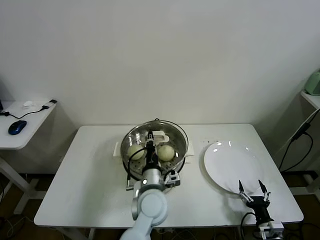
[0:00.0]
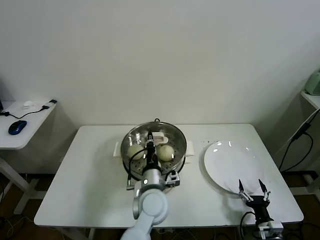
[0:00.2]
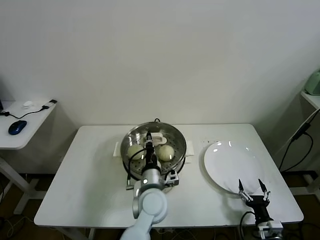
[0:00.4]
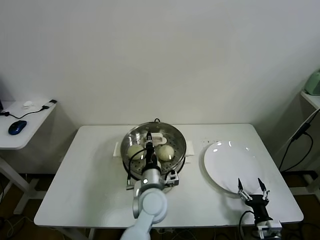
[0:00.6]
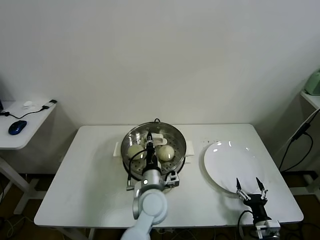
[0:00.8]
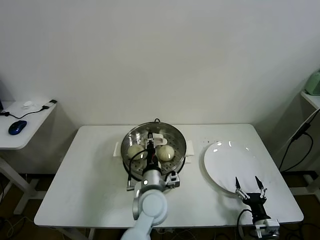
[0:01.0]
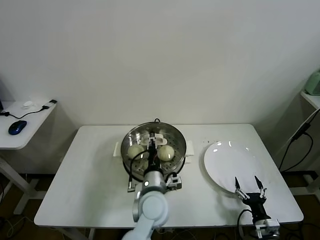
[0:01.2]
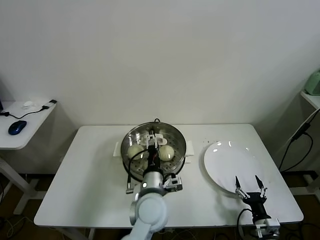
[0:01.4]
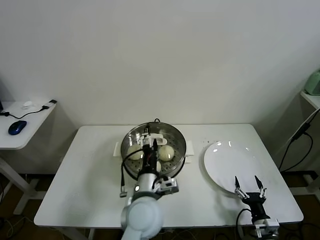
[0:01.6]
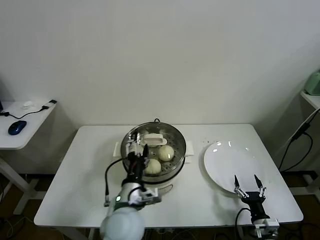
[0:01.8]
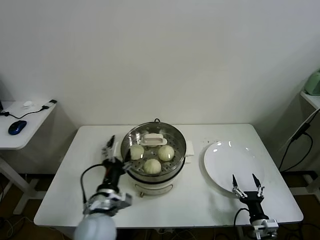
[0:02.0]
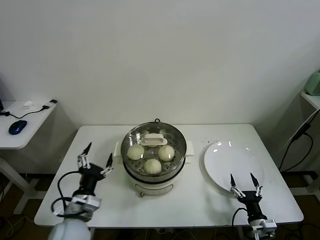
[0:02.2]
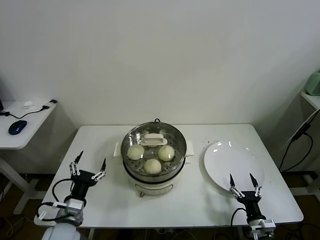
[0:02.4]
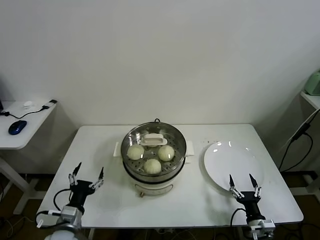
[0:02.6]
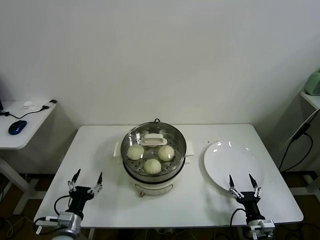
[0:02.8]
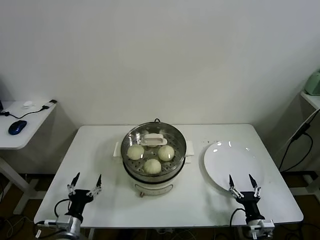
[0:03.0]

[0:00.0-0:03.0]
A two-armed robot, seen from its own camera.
Task of the whole recording: take steamed baozi put them in steamer.
0:00.0 to 0:01.6: The left gripper opens up.
0:01.6 to 0:03.0: The left gripper is displaced to the left and downward by about 30 cm.

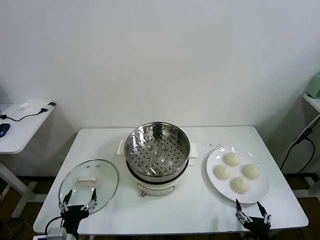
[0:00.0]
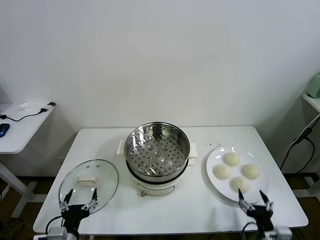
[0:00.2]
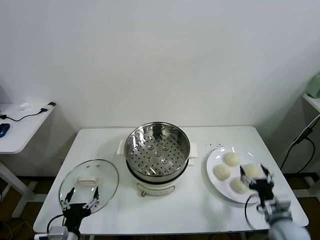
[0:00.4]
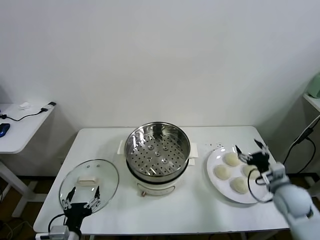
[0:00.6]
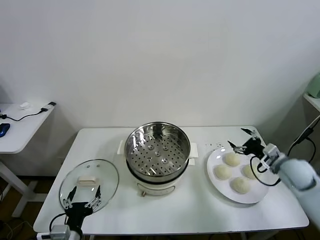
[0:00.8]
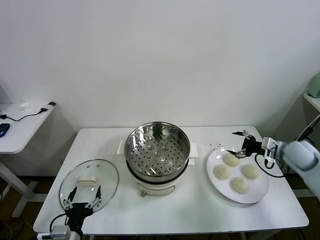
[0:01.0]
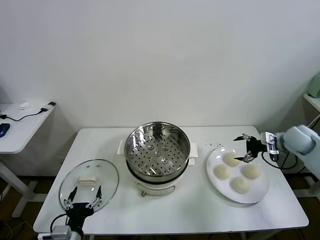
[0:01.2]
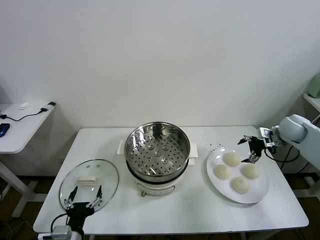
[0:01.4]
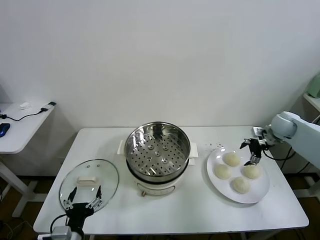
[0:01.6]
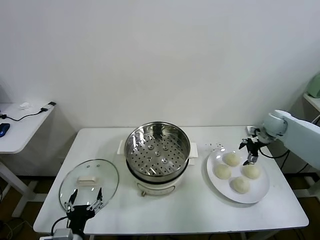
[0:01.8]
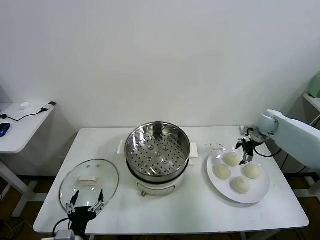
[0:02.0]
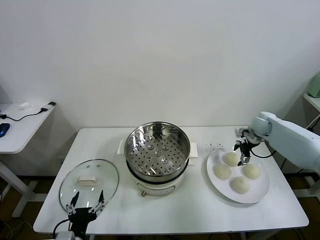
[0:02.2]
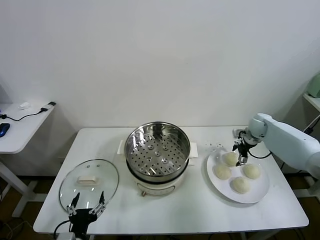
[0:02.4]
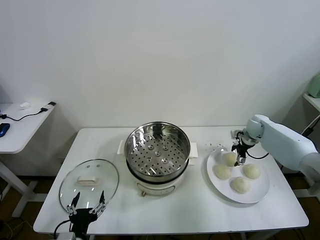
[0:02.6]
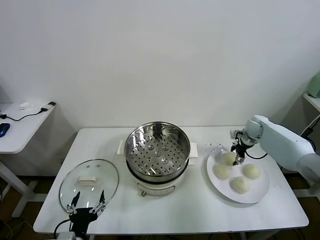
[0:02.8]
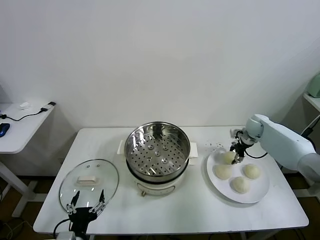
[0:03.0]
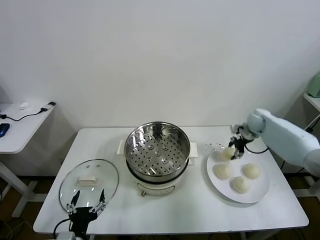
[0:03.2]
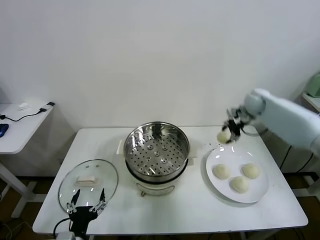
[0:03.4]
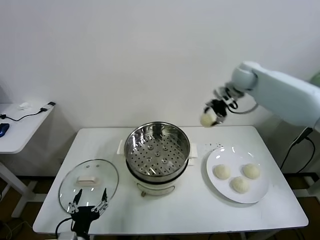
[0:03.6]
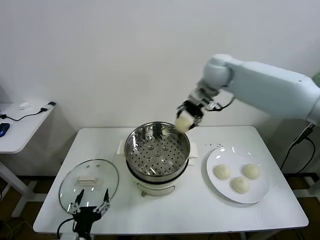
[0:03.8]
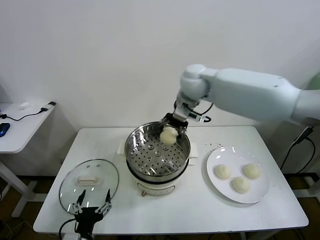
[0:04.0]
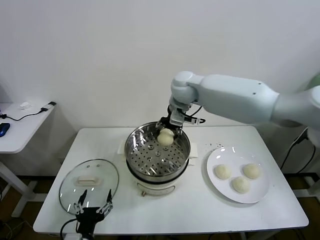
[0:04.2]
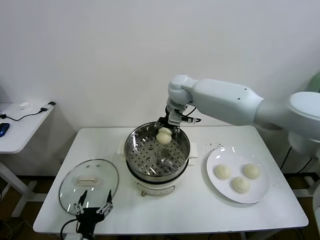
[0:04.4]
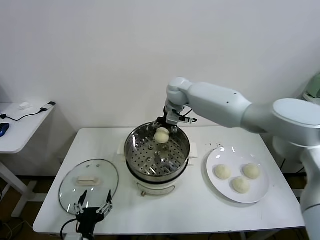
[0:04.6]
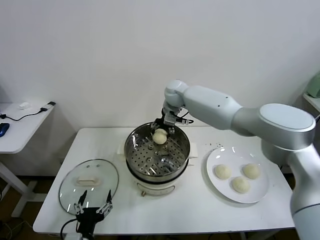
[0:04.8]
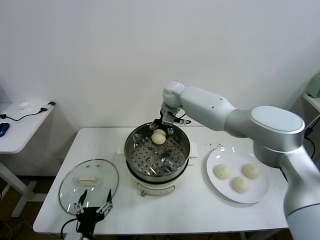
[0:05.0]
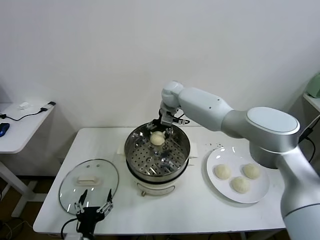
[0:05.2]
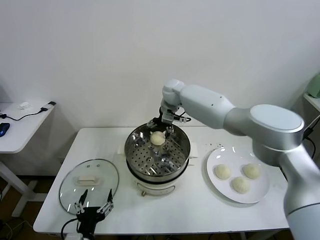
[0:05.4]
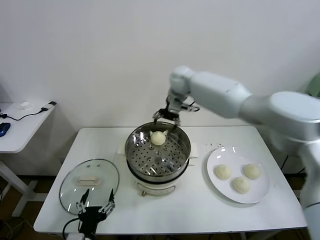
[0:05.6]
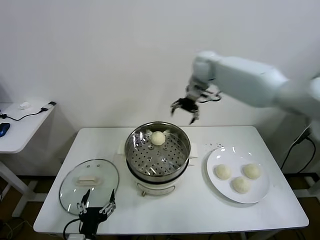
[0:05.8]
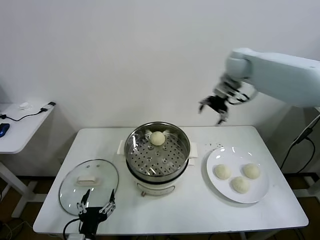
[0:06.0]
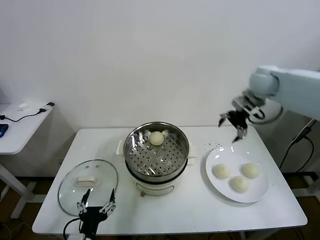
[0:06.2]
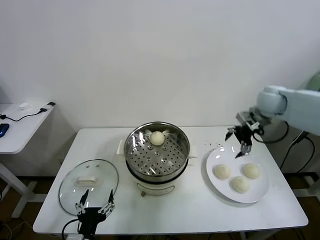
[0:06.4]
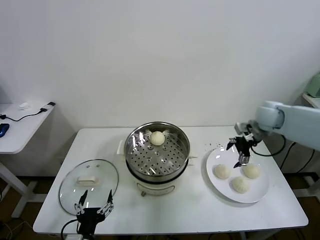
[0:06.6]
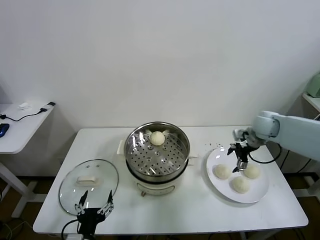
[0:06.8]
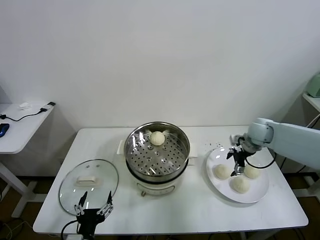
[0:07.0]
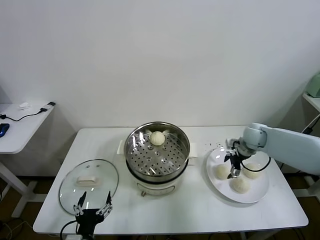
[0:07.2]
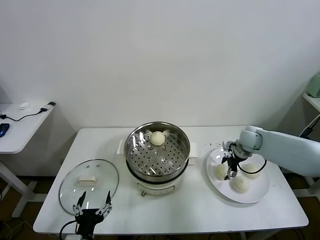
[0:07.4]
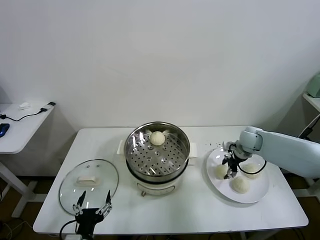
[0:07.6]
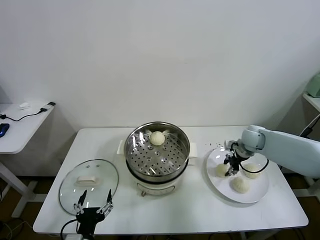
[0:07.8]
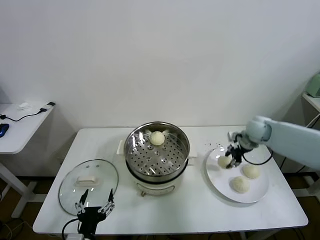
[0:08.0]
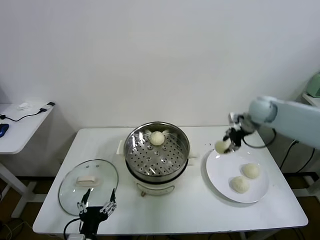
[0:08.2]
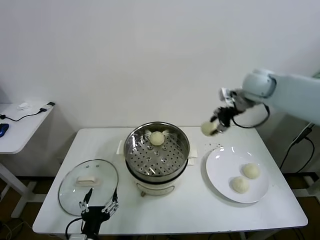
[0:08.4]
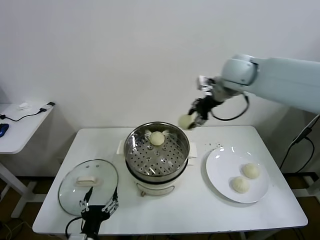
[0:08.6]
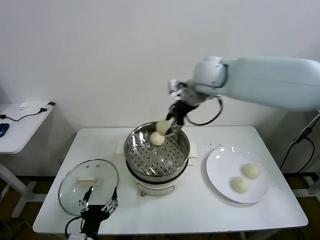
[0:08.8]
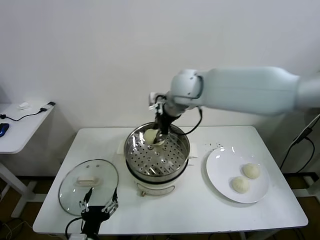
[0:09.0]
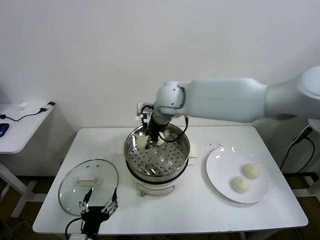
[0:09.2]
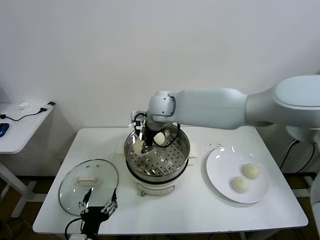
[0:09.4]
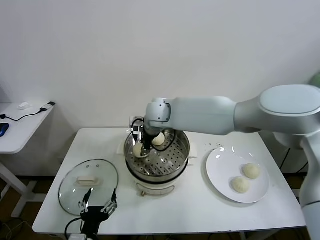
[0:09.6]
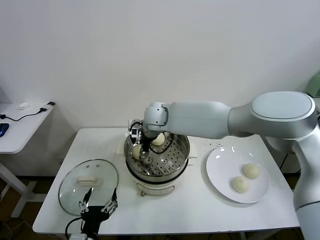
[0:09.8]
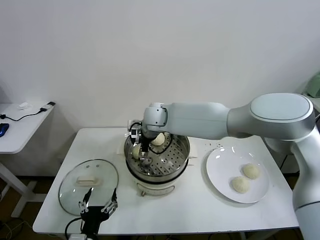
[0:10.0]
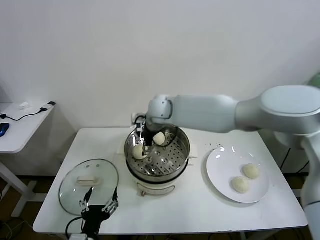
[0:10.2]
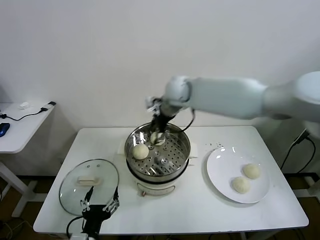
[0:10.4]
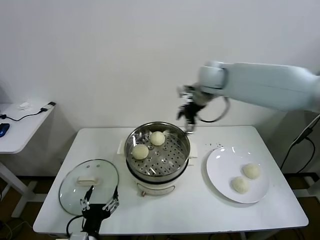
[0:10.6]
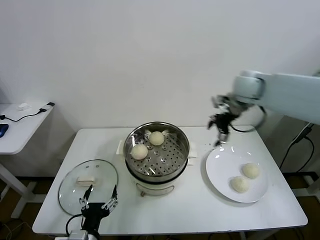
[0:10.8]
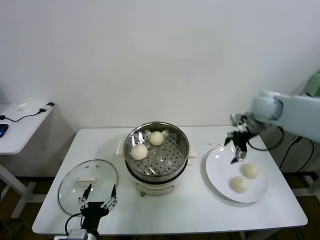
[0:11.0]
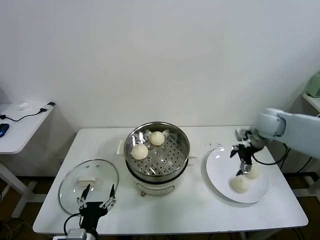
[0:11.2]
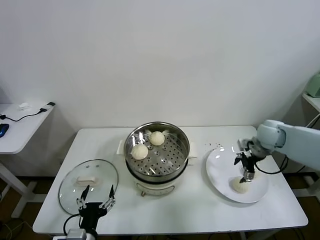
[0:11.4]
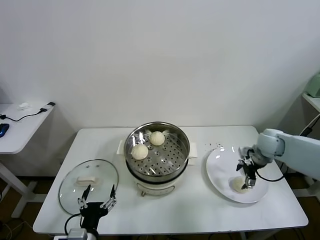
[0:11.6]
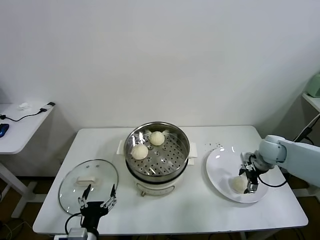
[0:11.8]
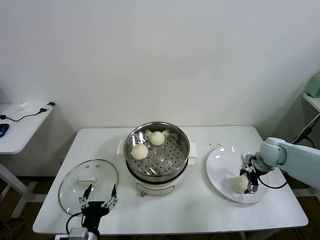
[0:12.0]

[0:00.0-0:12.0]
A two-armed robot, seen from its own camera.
Task of the whole recording: take steamed baozi put them in steamer.
Step, 0:00.0 to 0:02.8: Grasp the baozi in the plate with right gripper.
Step, 0:03.2 to 0:05.2: Place the baozi on the steamer with right gripper.
Step, 0:05.4 to 0:07.6: Grasp the baozi in the plate with right gripper.
Step, 0:07.8 to 0:10.0: Place the baozi on the steamer with right gripper.
0:01.6 to 0:03.0: The right gripper heads forward, covering approximately 5 cm, and closes its fingers.
0:03.0 to 0:04.4: The right gripper travels to the left and upward by some 40 cm.
0:04.4 to 0:06.0: The right gripper travels to the right by roughly 25 cm, and opens up.
0:06.0 to 0:07.6: The right gripper heads downward, covering approximately 25 cm, and closes its fingers.
0:07.6 to 0:09.0: The right gripper shifts approximately 40 cm to the left and upward.
0:09.0 to 0:10.4: The right gripper goes about 5 cm forward, reaches roughly 10 cm downward, then returns, and opens its fingers.
0:10.4 to 0:12.0: The right gripper moves to the right and downward, approximately 40 cm.

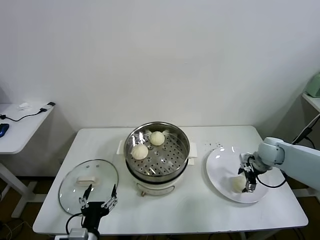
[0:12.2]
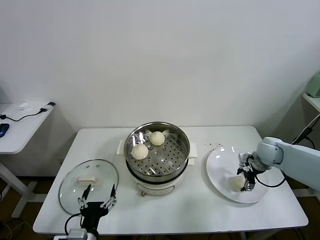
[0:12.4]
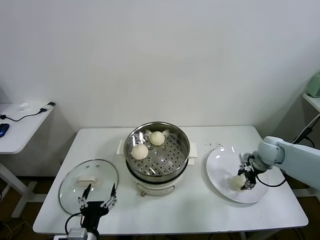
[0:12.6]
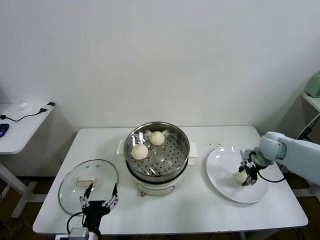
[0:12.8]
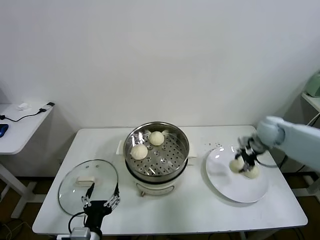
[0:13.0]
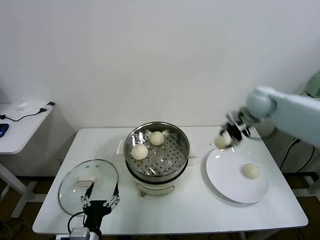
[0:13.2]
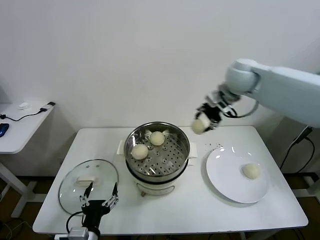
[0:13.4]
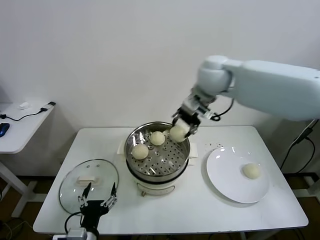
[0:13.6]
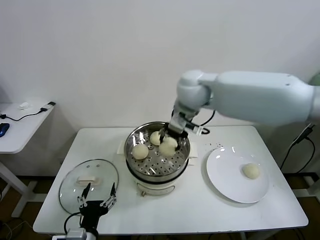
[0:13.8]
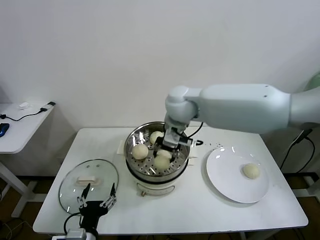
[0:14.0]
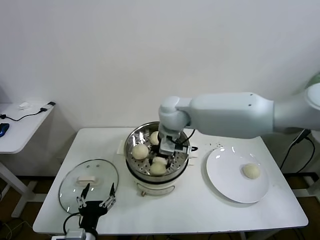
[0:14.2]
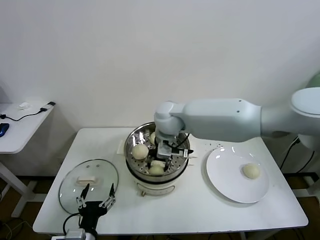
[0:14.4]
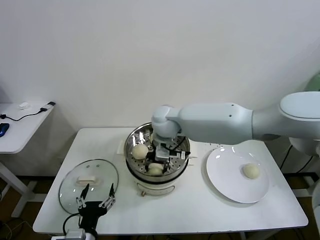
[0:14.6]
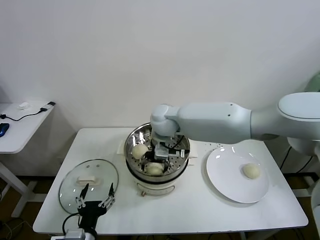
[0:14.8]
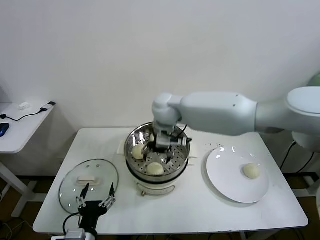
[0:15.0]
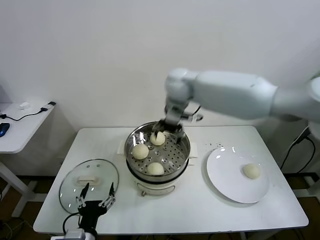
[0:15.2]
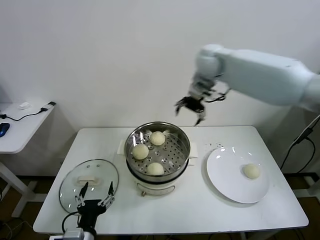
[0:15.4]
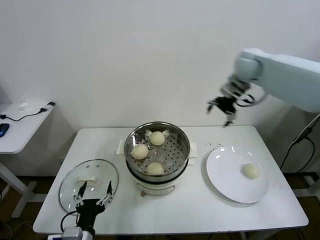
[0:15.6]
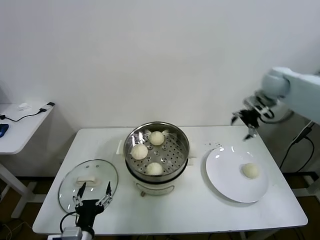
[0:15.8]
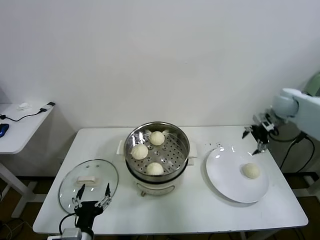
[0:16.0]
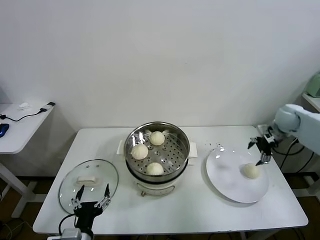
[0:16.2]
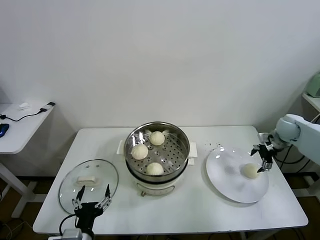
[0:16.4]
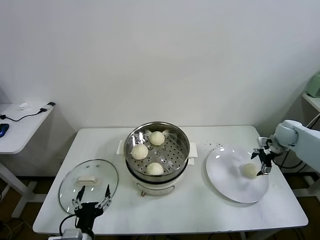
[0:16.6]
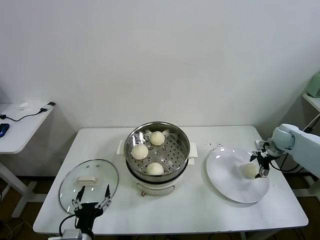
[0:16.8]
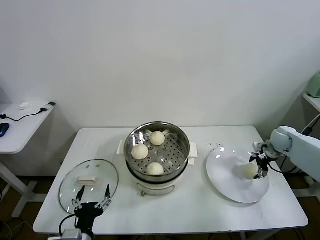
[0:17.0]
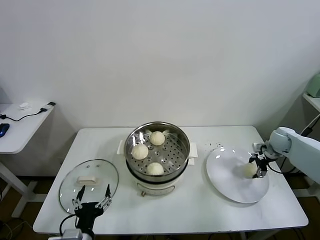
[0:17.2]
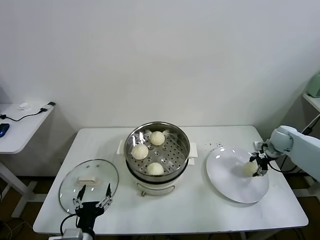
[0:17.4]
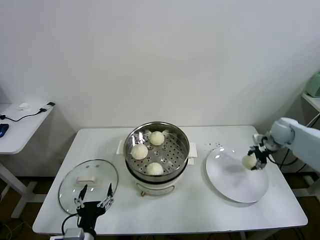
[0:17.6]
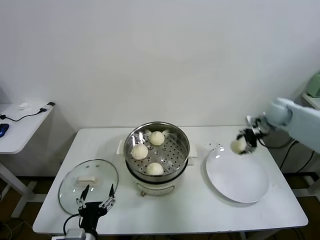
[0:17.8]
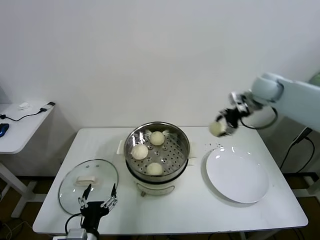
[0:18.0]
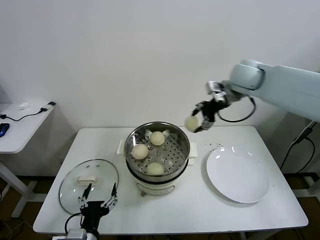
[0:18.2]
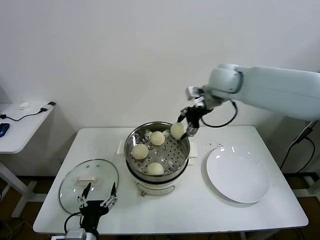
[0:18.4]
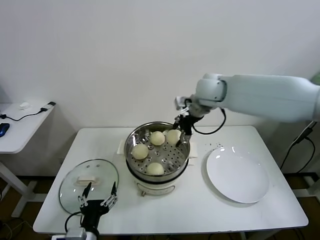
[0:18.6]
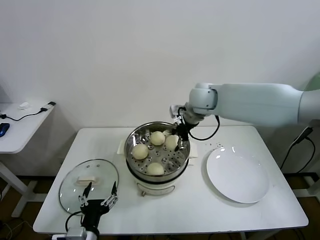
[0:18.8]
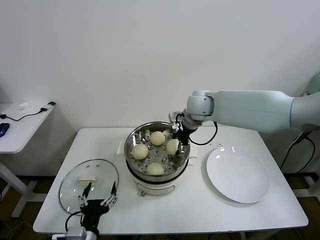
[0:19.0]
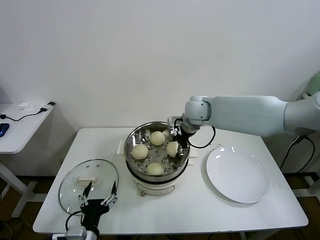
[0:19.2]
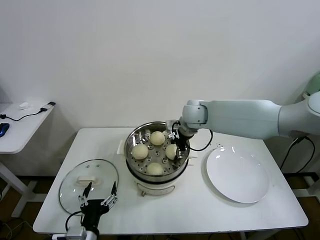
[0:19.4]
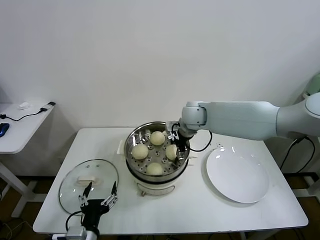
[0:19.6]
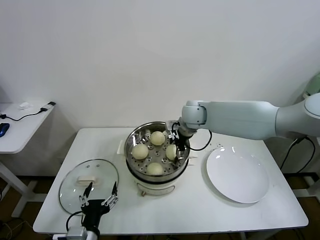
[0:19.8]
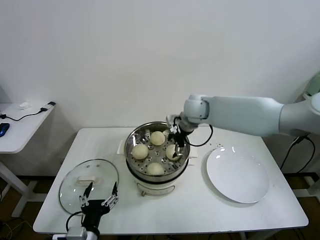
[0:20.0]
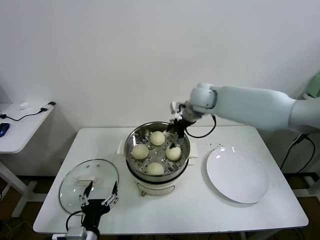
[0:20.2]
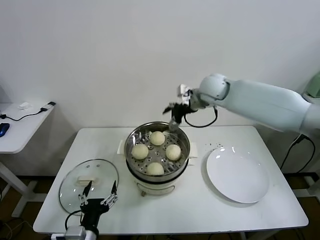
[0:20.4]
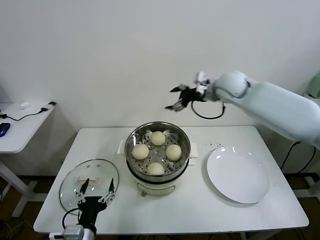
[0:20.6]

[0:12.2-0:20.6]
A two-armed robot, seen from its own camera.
Task of the whole recording: take steamed baozi put them in steamer.
Step, 0:12.8 to 0:14.8: Place the baozi on the steamer with right gripper.
Step, 0:15.0 to 0:17.2: Grasp the baozi in the plate with right gripper.
Step, 0:17.4 to 0:20.0: Place the baozi on the steamer with right gripper.
0:12.2 to 0:13.6: The right gripper is displaced upward and to the left by some 40 cm, and closes its fingers.
0:13.6 to 0:15.0: The right gripper goes roughly 15 cm to the left and downward, and opens up.
0:15.0 to 0:16.4: The right gripper travels to the right by approximately 50 cm.
0:16.4 to 0:17.8: The right gripper moves upward and to the left, about 10 cm, and closes.
0:17.8 to 0:19.2: The right gripper heads to the left, covering some 30 cm.
0:19.2 to 0:20.6: The right gripper shifts approximately 15 cm to the right and upward, and opens.
